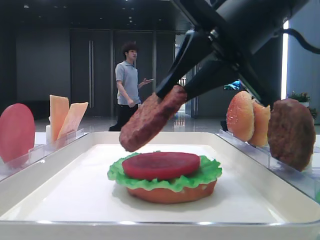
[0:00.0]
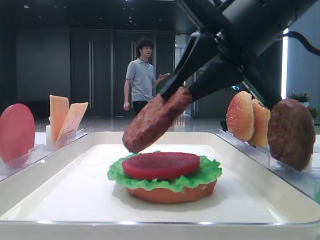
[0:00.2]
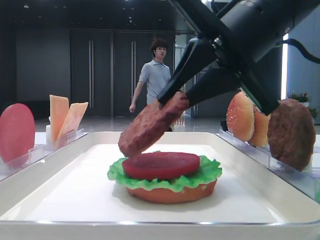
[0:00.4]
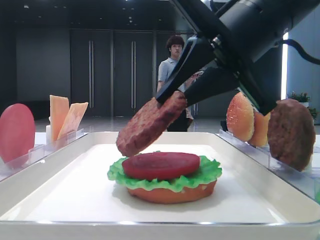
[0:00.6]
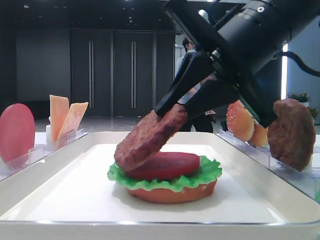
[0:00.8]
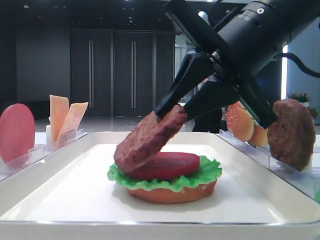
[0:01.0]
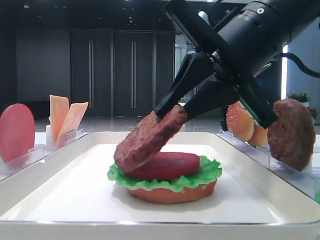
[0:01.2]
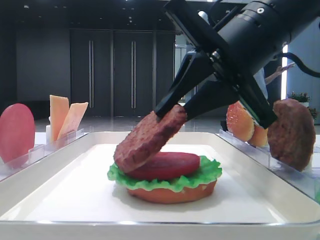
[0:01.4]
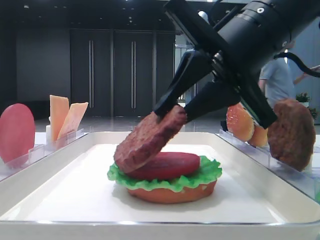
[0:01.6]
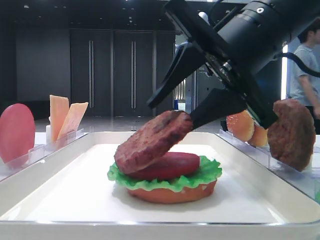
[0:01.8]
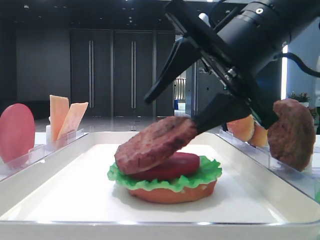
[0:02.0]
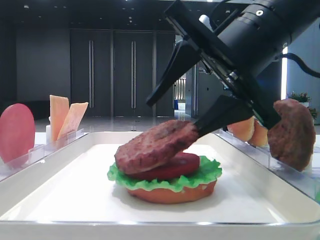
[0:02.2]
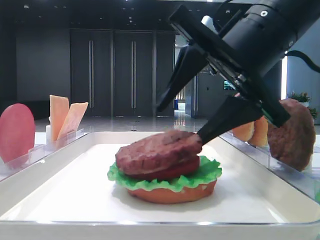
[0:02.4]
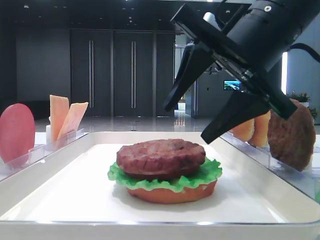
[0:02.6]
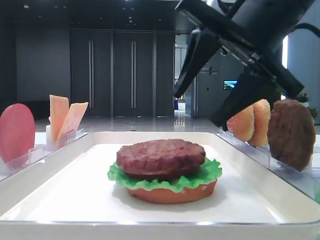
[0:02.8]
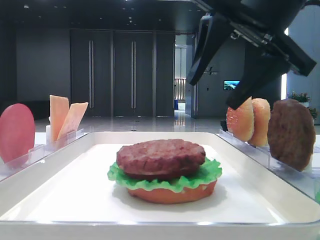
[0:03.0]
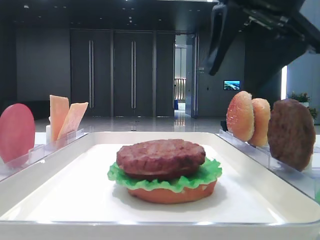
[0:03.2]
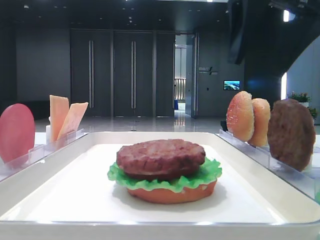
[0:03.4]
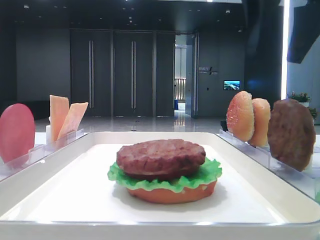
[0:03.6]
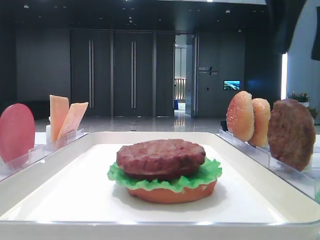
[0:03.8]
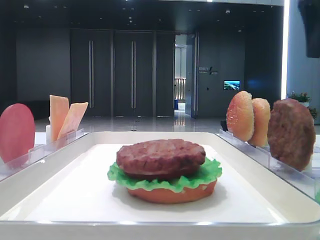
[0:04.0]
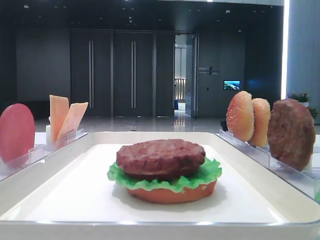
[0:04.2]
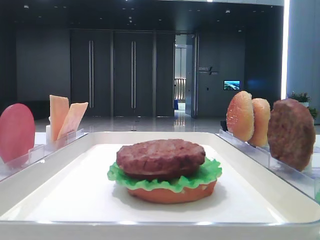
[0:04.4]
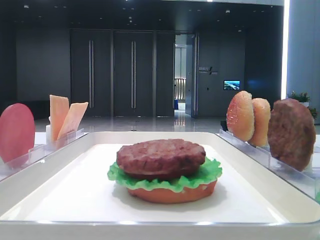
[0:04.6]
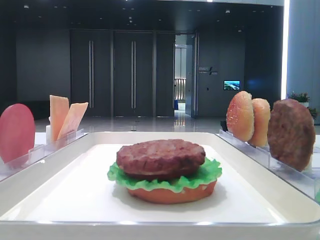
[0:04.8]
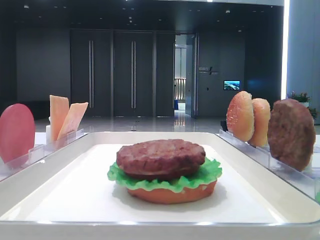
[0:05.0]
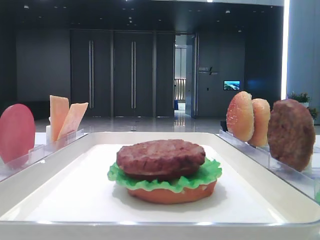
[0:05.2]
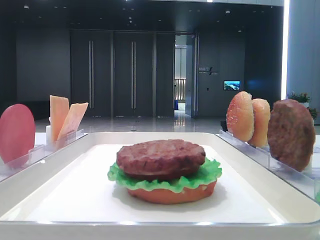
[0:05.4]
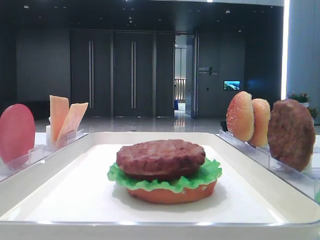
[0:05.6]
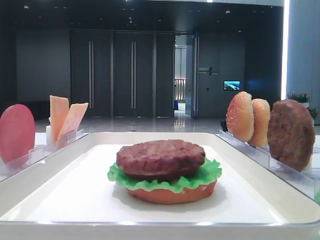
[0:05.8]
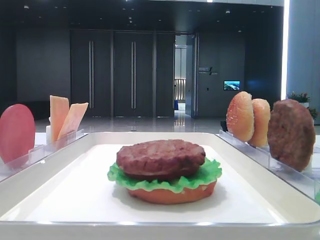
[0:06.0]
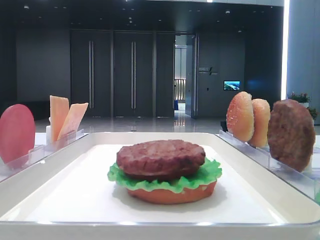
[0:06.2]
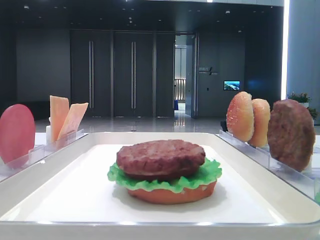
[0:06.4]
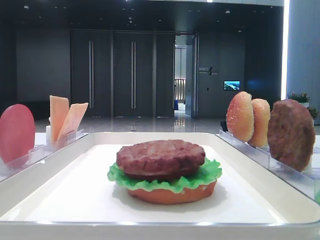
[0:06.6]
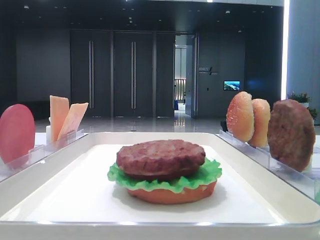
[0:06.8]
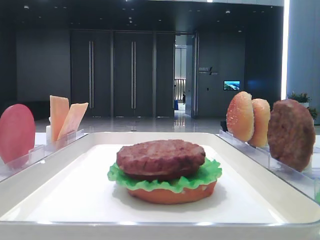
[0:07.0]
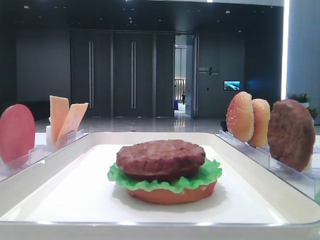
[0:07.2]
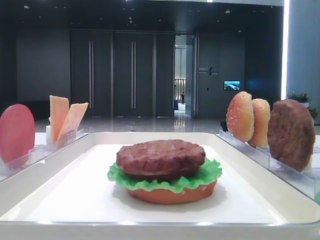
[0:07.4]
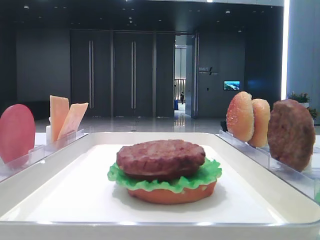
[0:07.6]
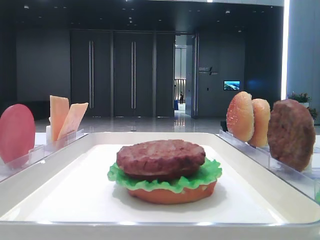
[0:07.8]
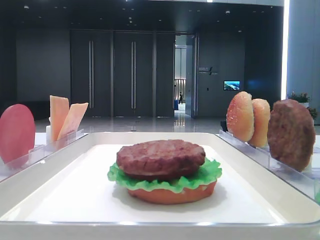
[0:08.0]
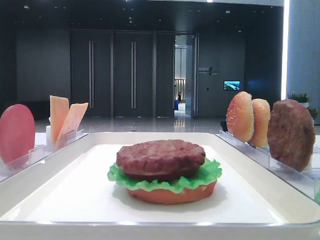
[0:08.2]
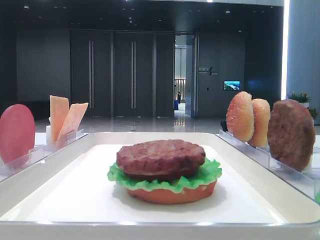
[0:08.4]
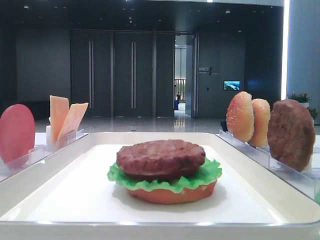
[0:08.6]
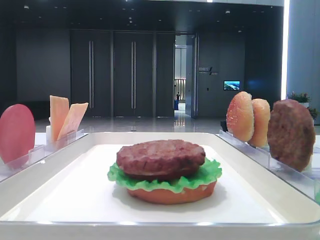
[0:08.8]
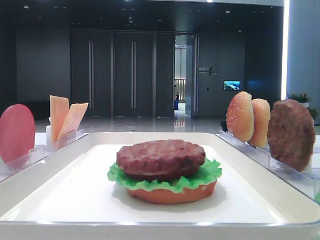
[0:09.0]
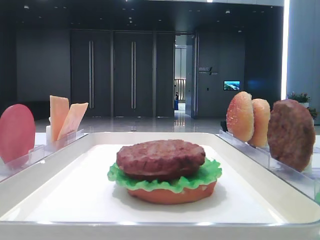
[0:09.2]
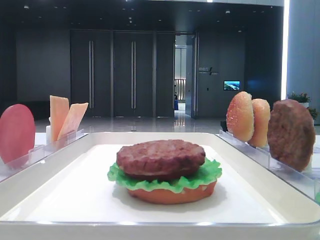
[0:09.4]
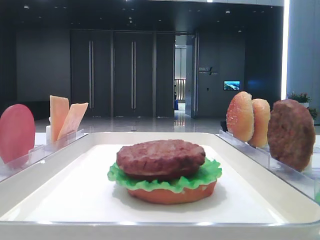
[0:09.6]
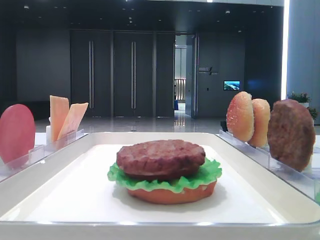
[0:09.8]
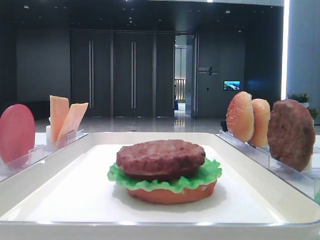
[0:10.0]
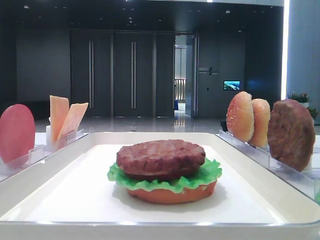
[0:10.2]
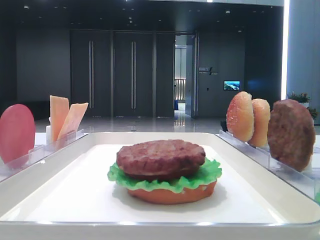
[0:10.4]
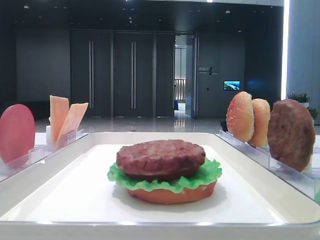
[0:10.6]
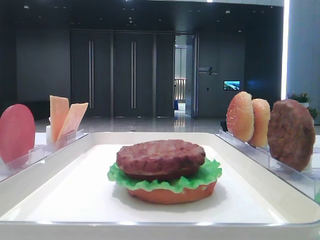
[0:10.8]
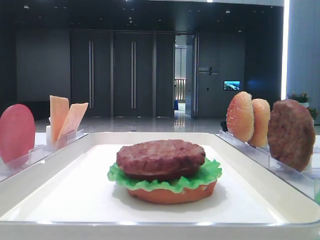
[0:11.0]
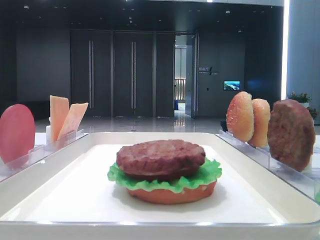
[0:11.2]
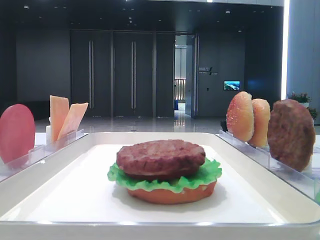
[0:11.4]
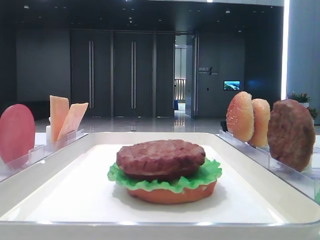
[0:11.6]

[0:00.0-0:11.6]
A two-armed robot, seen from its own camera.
Step, 0:00.0 to 0:02.4: Place the patty on the tomato slice with the right hand.
0:00.0 to 0:01.4: The grippers make only small movements.
0:01.4 to 0:02.8: The right gripper opens.
0:02.8 to 0:04.4: The right gripper heads to the right and upward, covering about 20 cm.
0:07.2 to 0:11.6: Both grippers stay put.

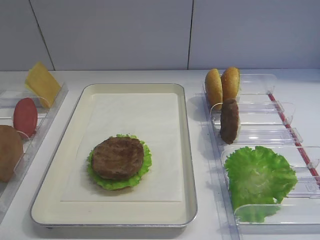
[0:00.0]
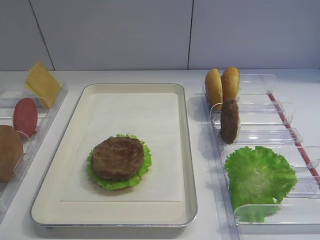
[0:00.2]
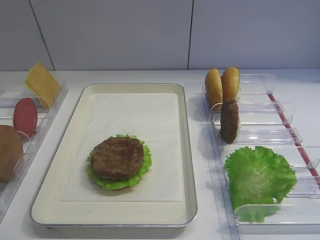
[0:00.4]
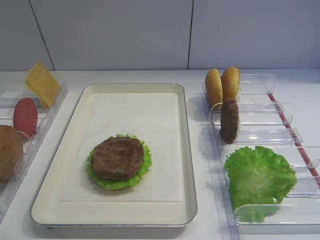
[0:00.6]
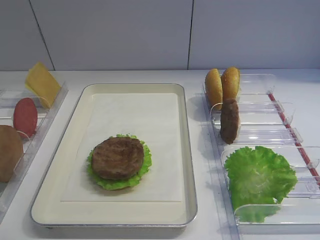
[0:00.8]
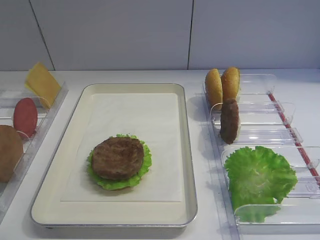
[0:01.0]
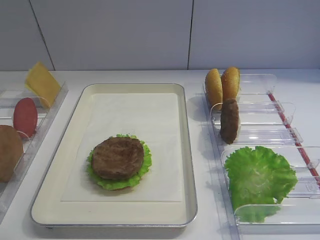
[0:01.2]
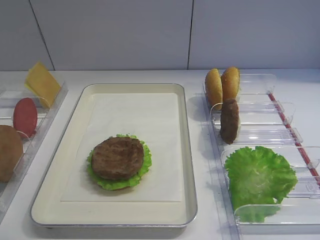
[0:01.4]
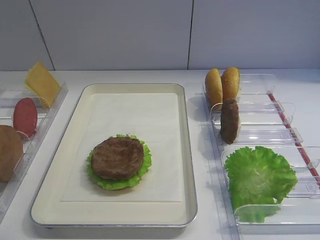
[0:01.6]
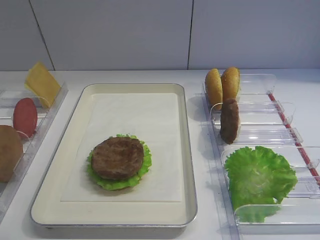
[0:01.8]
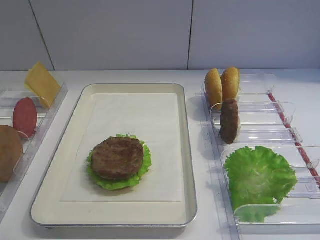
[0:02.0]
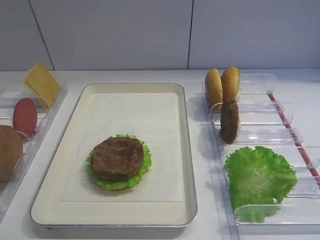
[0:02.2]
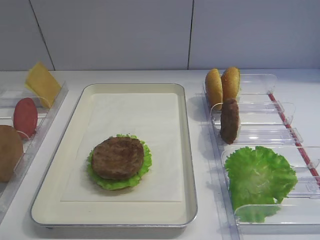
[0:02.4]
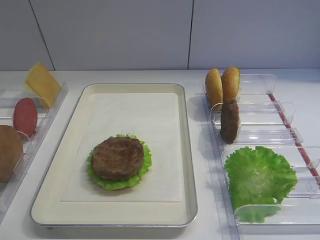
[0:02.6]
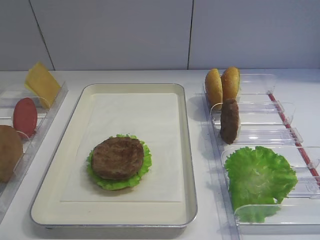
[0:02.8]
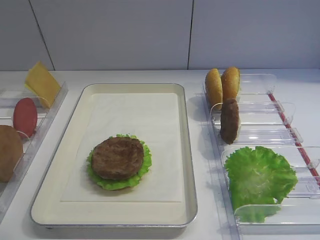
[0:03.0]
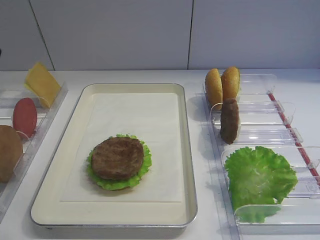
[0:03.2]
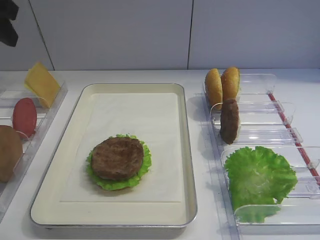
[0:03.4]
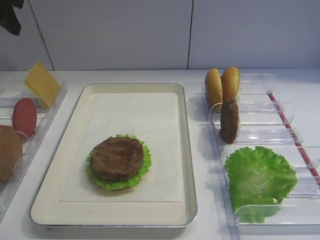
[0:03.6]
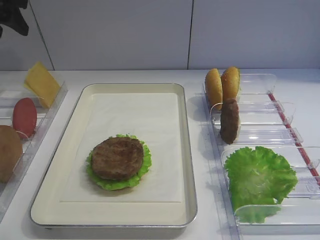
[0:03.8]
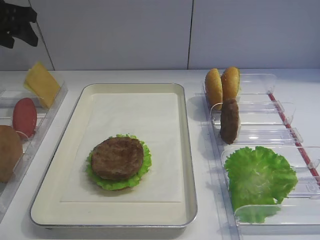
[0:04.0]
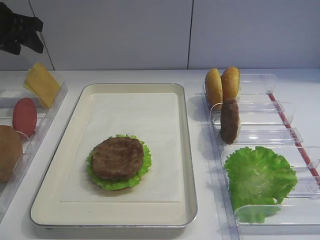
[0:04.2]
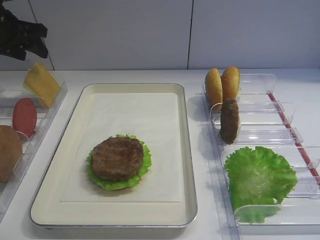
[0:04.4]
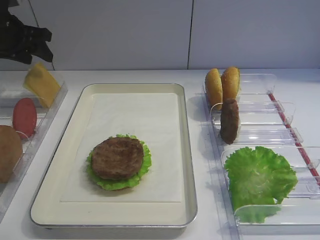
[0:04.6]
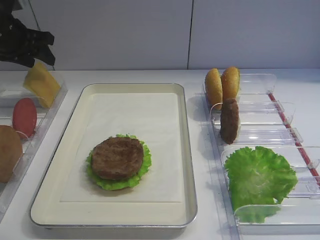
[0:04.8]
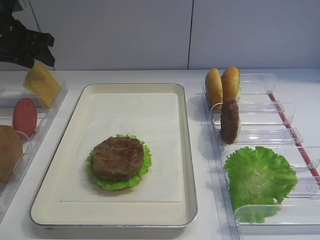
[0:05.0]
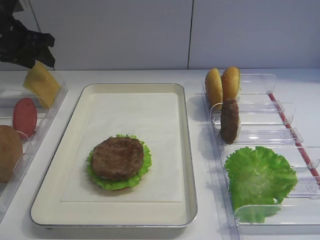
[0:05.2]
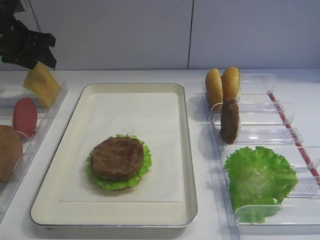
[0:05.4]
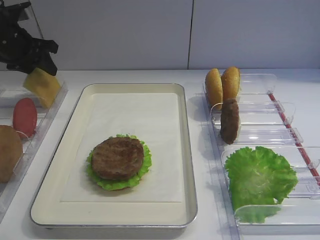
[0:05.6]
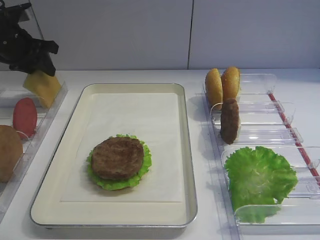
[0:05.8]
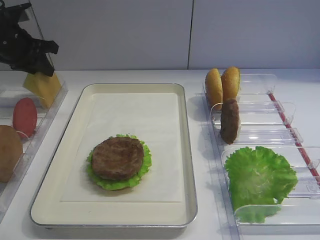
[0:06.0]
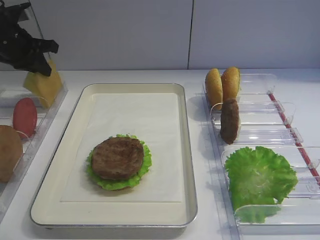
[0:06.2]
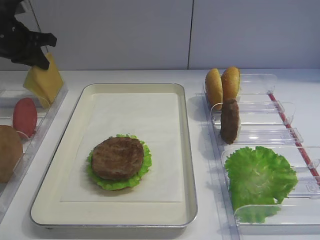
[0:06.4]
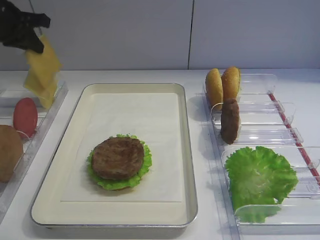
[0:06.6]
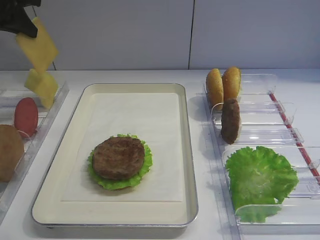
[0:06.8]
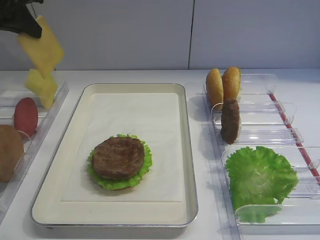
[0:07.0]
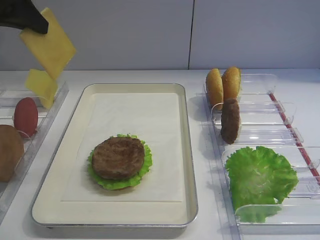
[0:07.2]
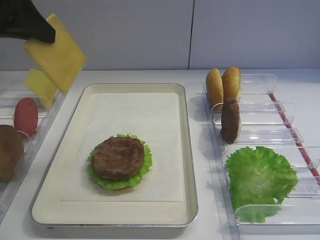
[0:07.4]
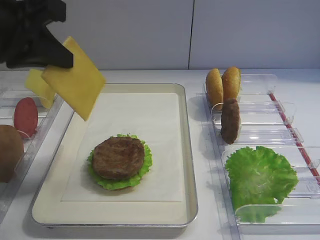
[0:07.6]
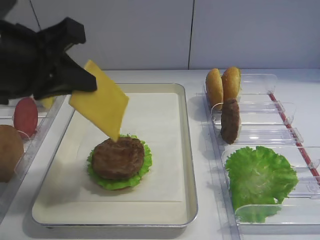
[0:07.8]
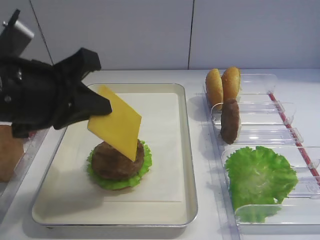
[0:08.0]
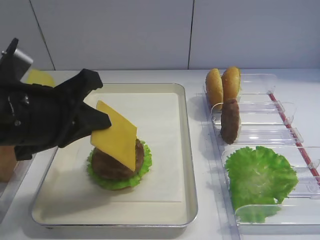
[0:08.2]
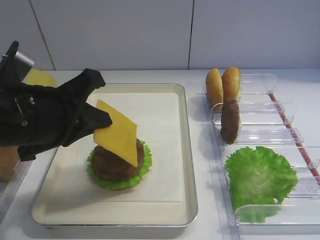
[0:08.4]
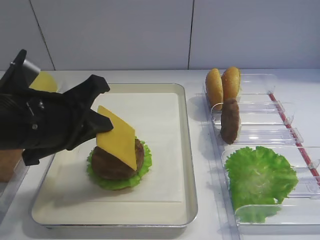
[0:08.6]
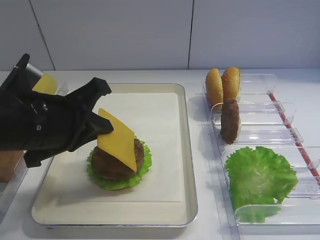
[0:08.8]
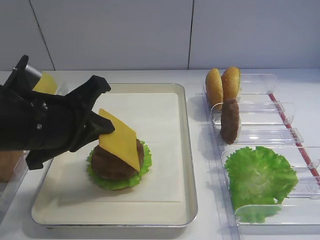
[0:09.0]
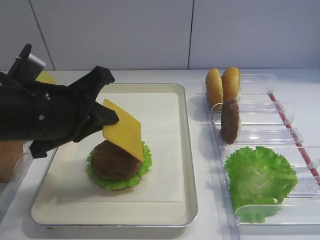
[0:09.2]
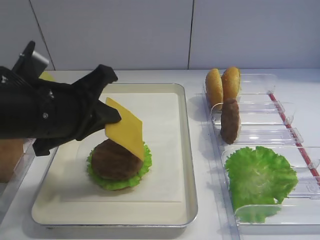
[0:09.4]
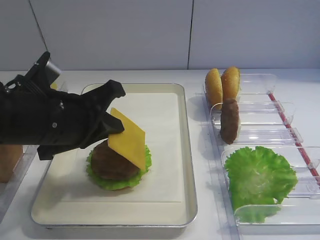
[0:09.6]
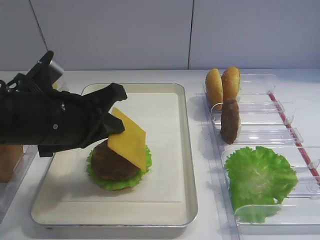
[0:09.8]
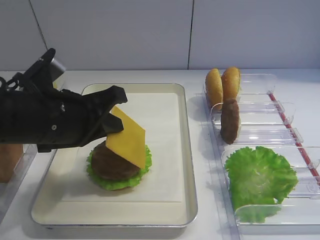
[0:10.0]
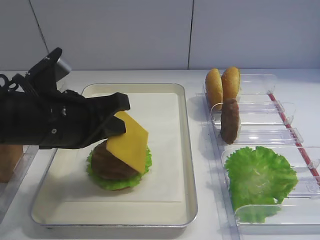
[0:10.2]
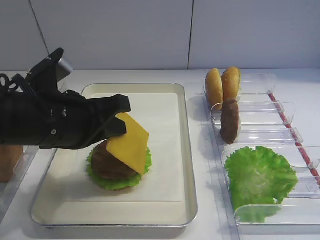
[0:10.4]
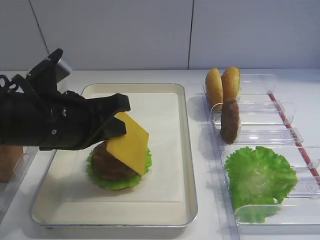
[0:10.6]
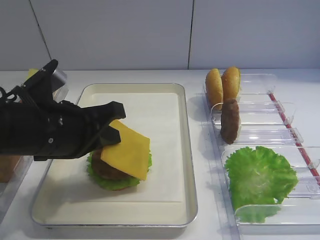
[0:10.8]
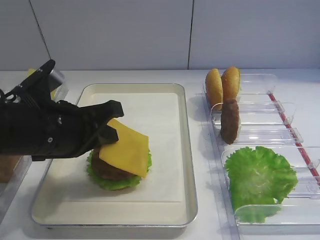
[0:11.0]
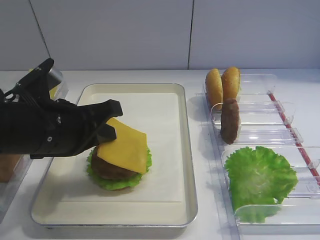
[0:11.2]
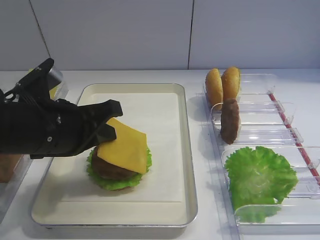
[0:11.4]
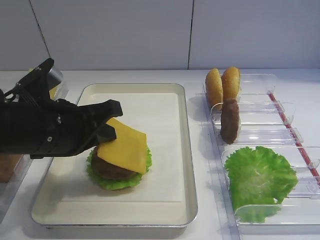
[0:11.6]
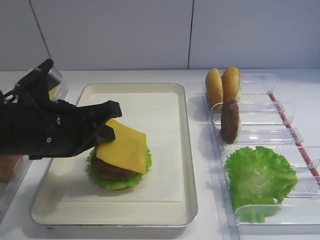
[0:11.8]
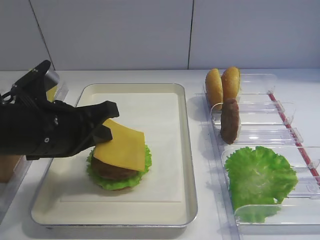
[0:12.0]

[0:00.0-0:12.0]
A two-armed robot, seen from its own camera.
Step, 0:00.0 to 0:06.4: Pick up the cheese slice with the left gripper.
0:03.0 to 0:04.4: The left gripper moves forward, roughly 25 cm.
0:04.4 to 0:06.0: The left gripper closes its fingers.
0:06.0 to 0:07.6: The left gripper heads backward, to the right and upward, covering about 25 cm.
0:07.6 to 0:09.0: The left gripper moves downward, some 10 cm.
0:10.4 to 0:12.0: There are only small adjustments of the grippers.
